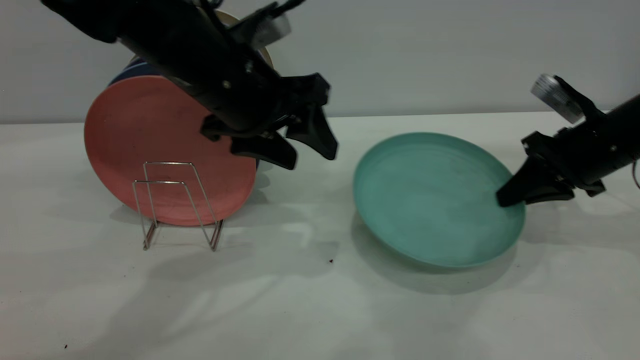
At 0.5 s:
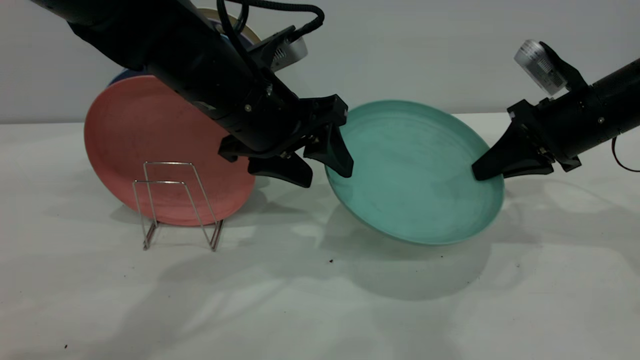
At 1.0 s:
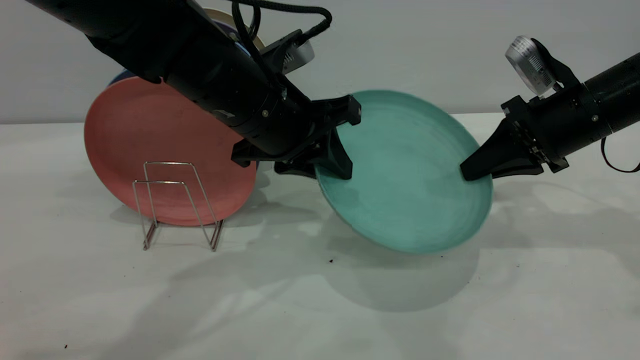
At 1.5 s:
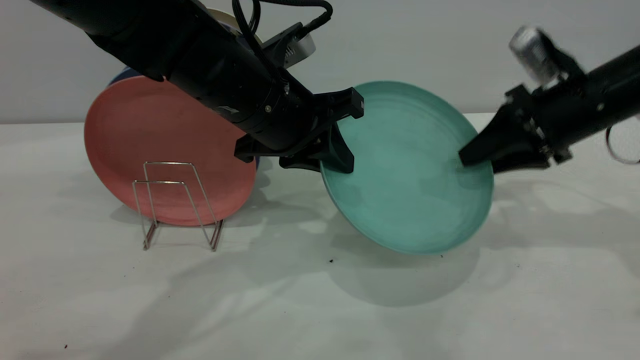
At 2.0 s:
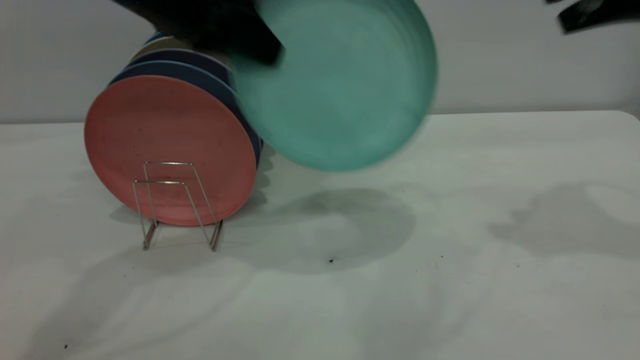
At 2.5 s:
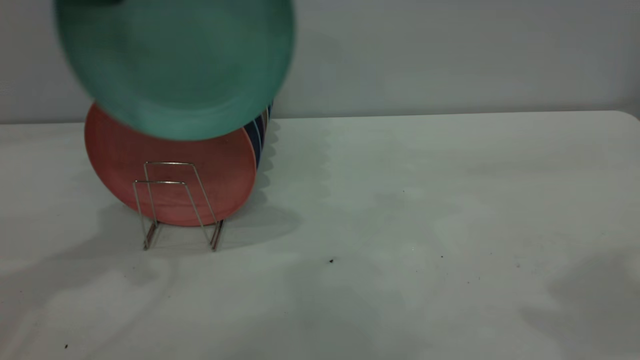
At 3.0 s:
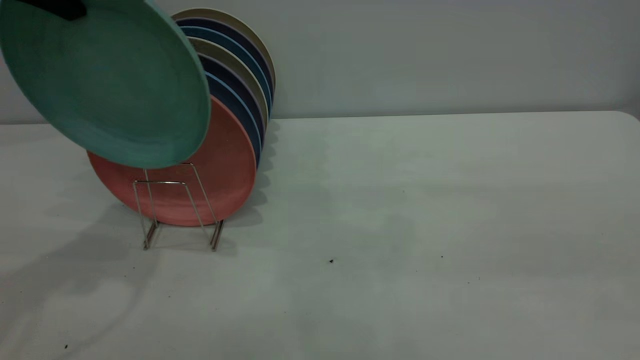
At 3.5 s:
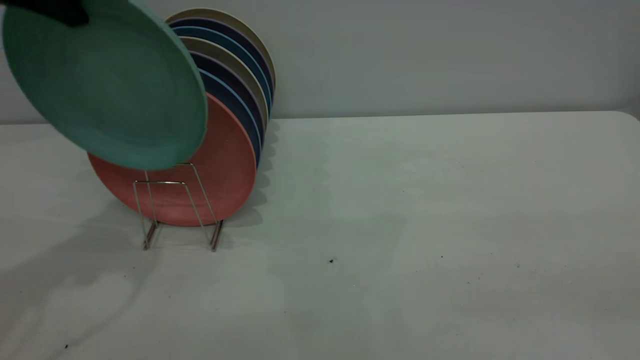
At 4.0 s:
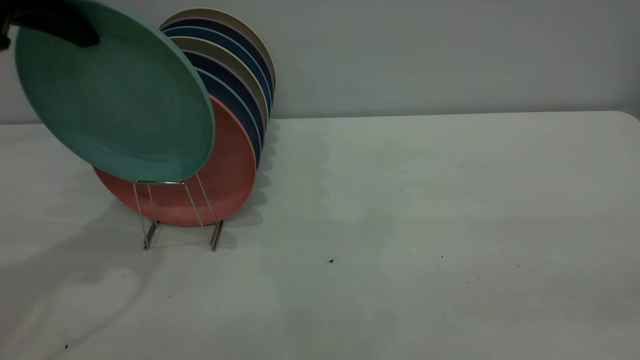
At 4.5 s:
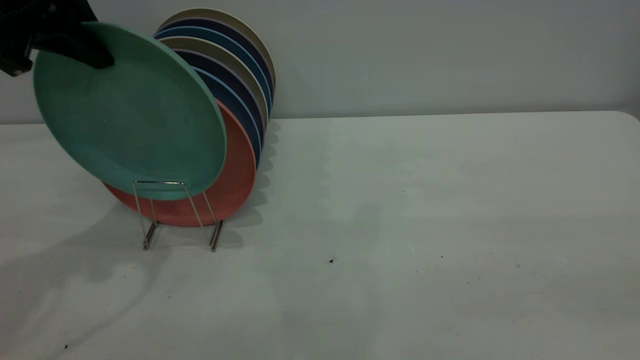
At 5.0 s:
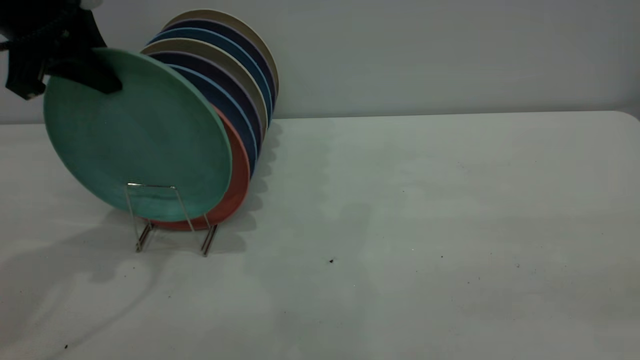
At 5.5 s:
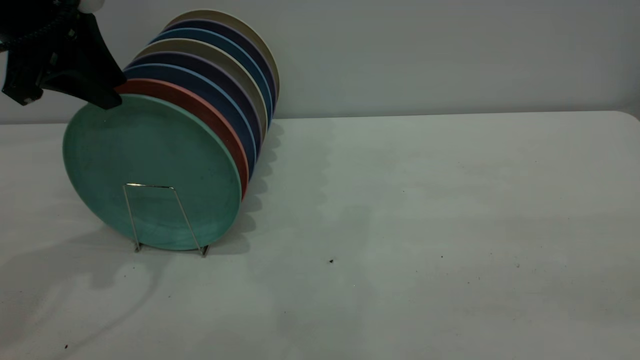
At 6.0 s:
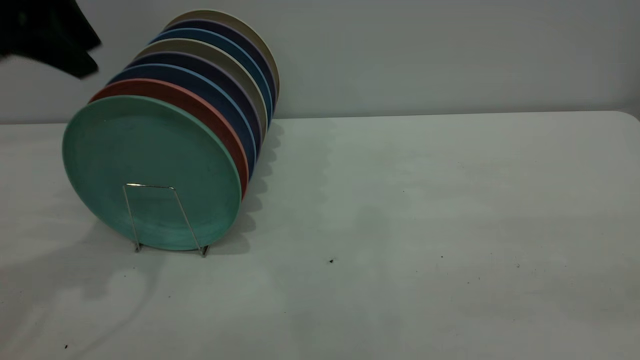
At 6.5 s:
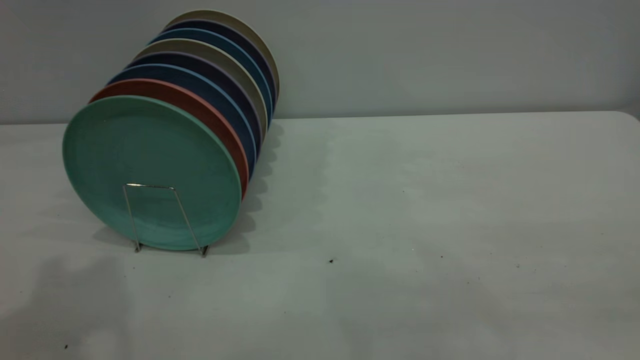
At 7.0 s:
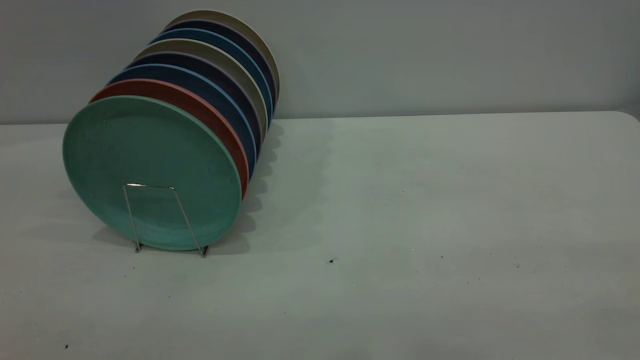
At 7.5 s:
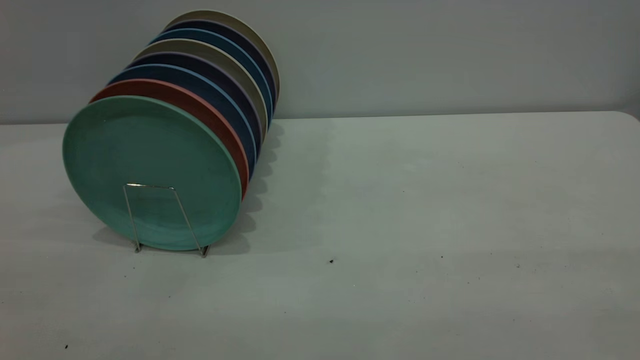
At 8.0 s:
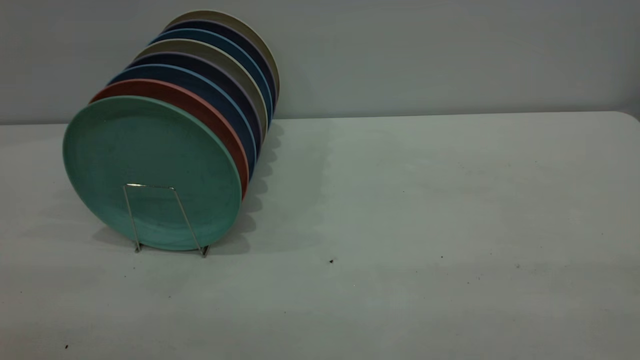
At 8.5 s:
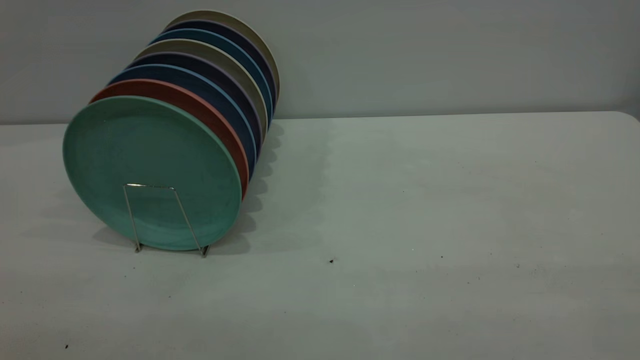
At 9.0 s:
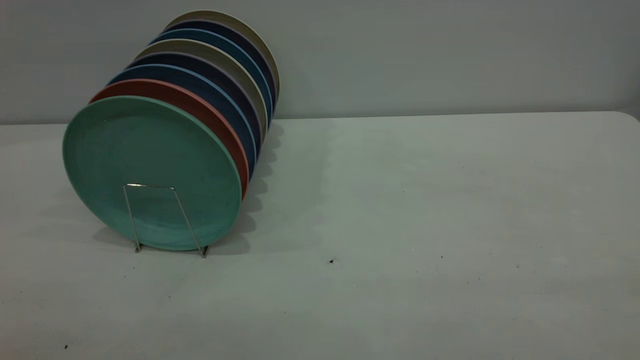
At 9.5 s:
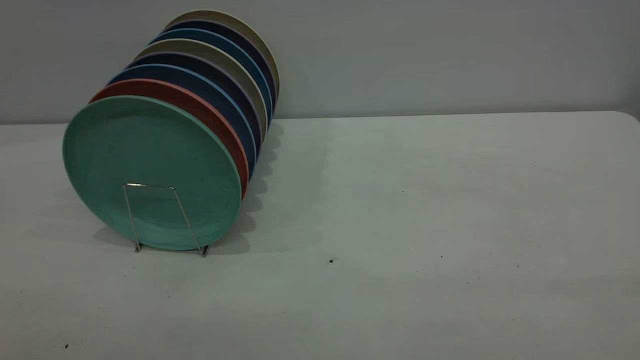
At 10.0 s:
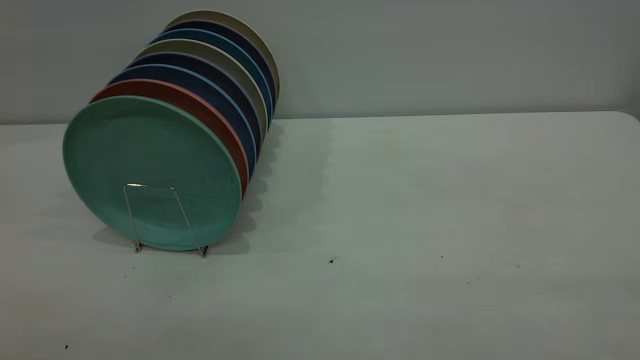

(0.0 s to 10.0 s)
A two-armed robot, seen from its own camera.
Task of the whole recording: the right gripper grasp the green plate, the right gripper pass the green plate to the left gripper, and the left gripper place the green plate on the plate rack.
Step, 0.5 s - 1.5 s: Pass the plate from the right gripper to the left gripper.
Step, 2.0 s - 5.5 s: Place the plate on the shelf.
0.0 s - 2.0 s: The right gripper heads upward, covering approximately 20 cm, and opens its fingers. Meanwhile the left gripper goes some 10 cm upward and to the left, and closes up.
2.0 s - 4.0 s: The left gripper moves to the left, roughly 10 cm. The right gripper moves backward, some 30 cm.
4.0 s - 6.0 s: The left gripper opens.
6.0 s - 8.0 s: The left gripper goes approximately 35 cm backward.
